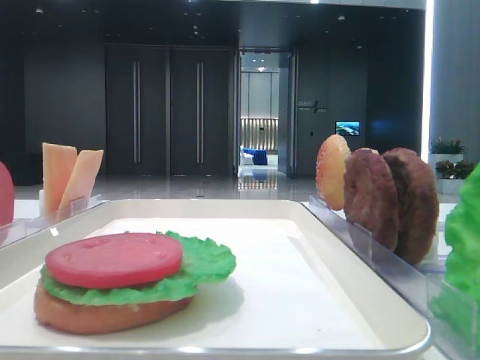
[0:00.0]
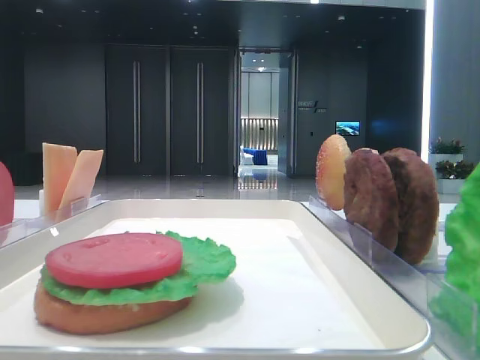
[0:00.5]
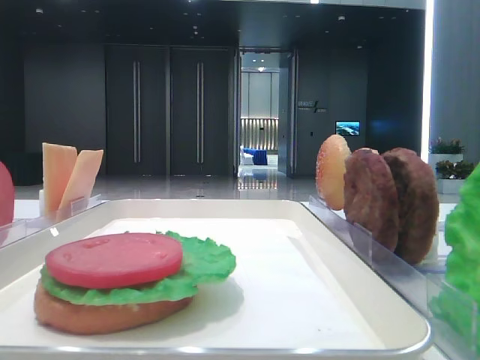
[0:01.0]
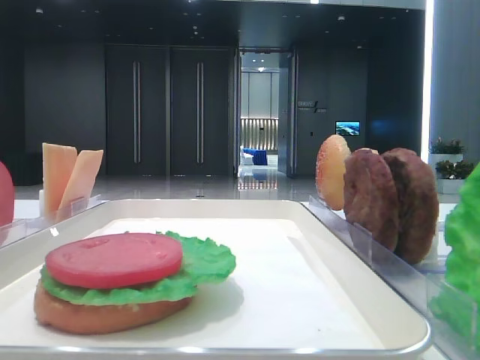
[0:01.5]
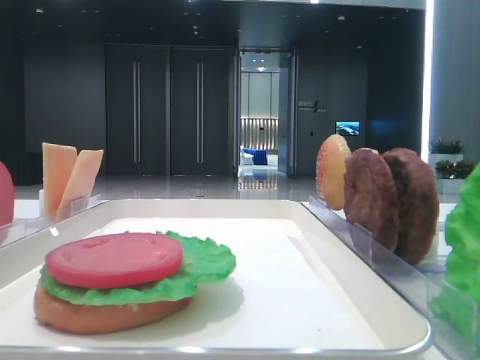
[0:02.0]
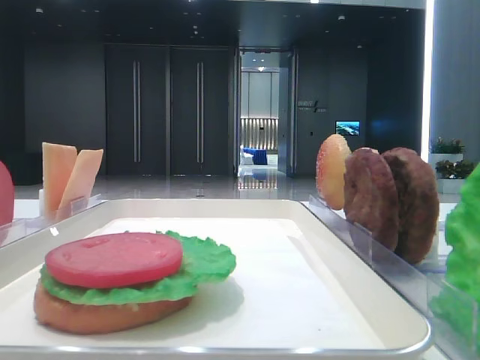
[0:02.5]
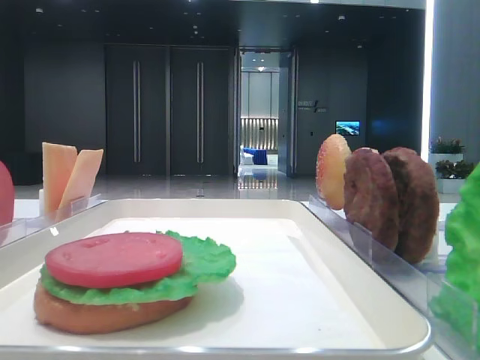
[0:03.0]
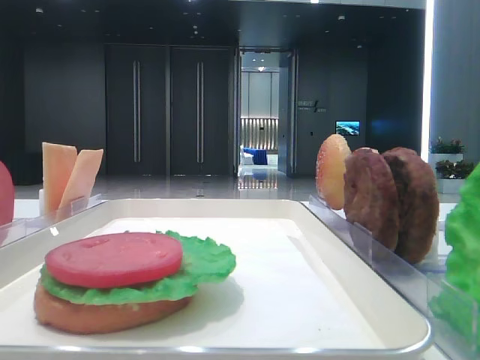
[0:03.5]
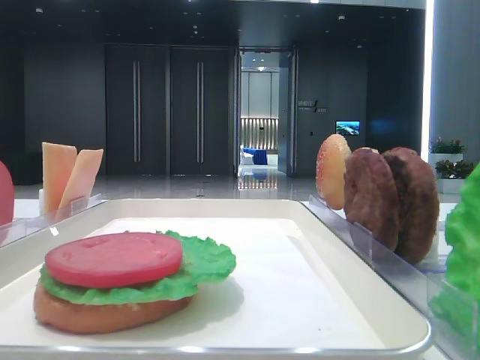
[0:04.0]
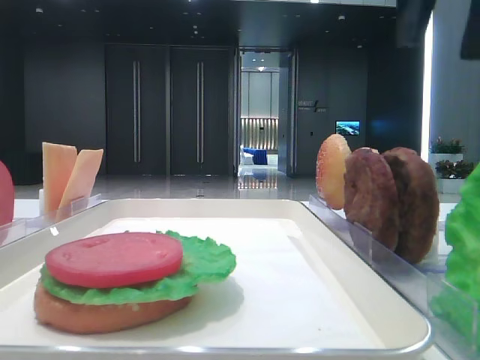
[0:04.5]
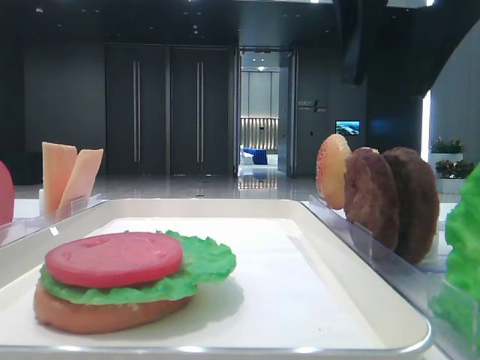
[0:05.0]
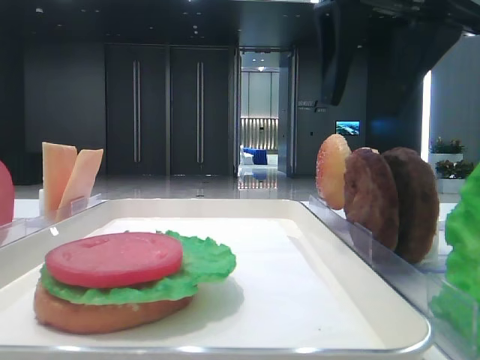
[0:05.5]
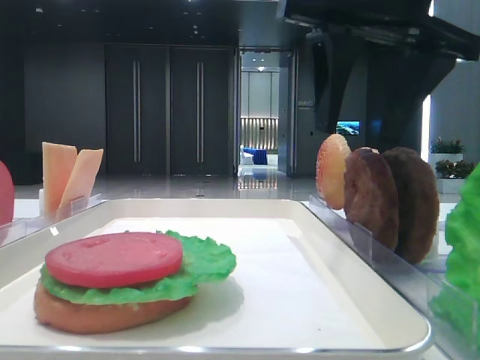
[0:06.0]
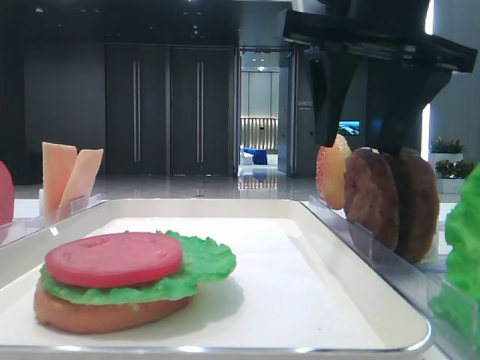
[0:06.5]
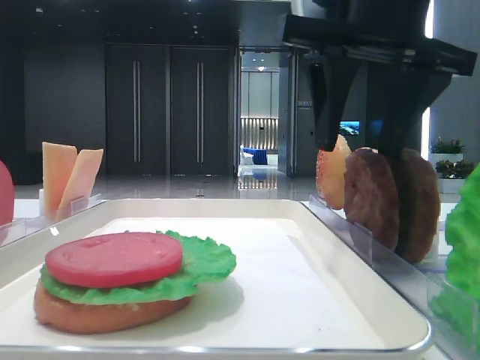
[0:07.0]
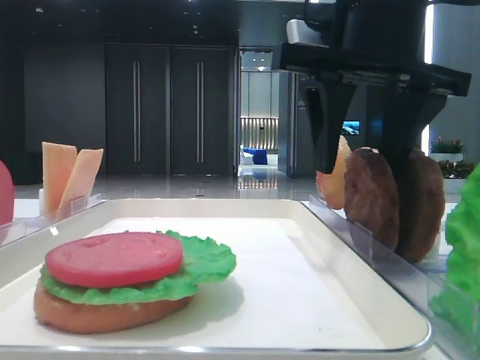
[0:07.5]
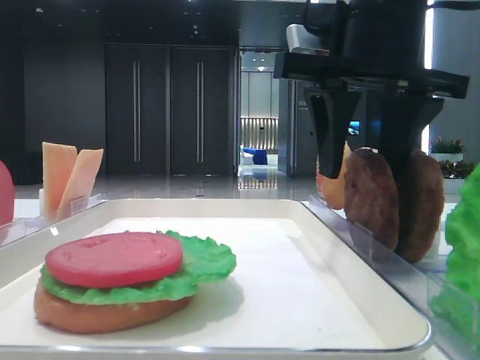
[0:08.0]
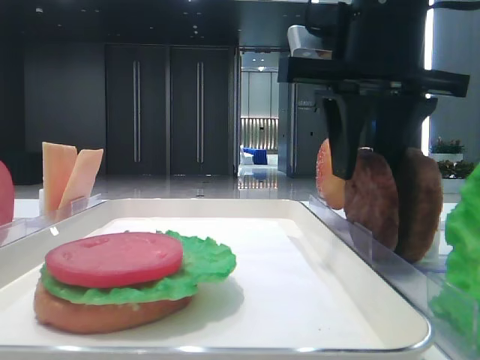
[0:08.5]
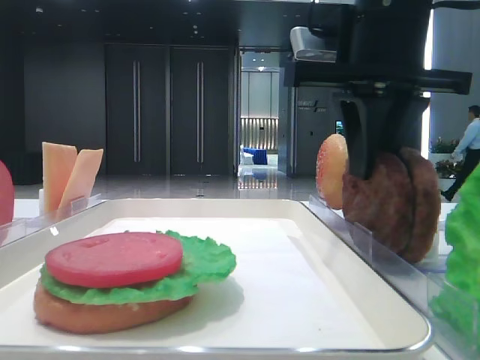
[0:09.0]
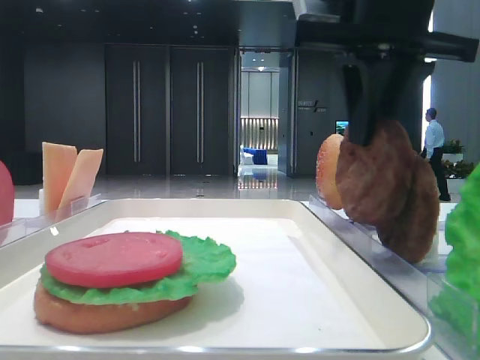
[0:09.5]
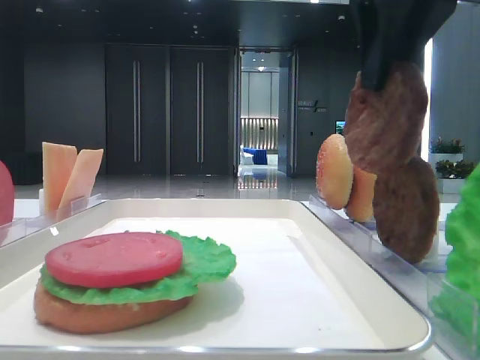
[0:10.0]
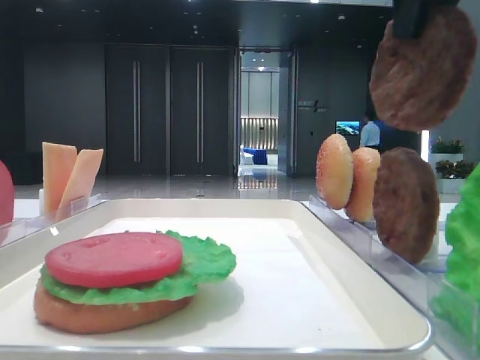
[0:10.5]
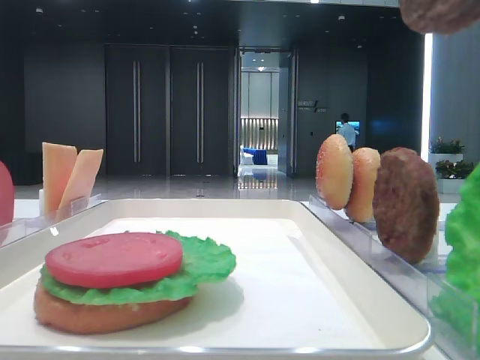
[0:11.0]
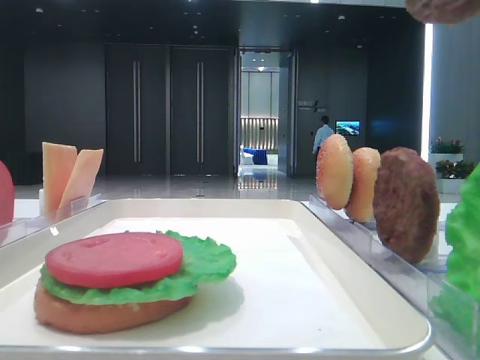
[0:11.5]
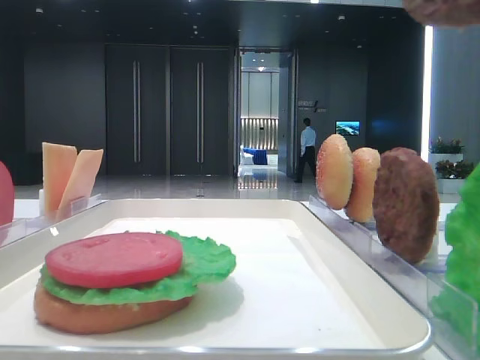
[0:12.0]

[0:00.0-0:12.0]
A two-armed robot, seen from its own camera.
Step, 0:00.0 to 0:09.0: Grab the patty with the right hand.
0:04.0 to 0:06.0: The right gripper travels to the left, downward and forward by about 15 cm.
0:06.0 to 0:08.0: The grippers stay close to where they were, moving slightly.
0:08.0 to 0:10.0: The right gripper moves upward, roughly 5 cm, and closes.
0:10.0 to 0:12.0: The right gripper is displaced backward and upward by about 15 cm.

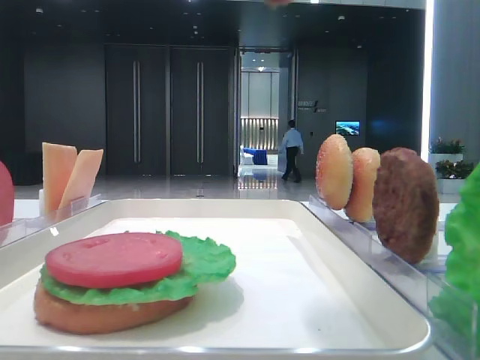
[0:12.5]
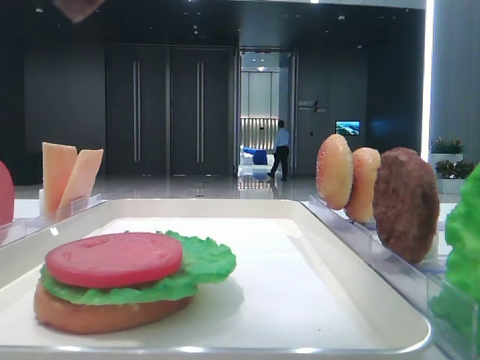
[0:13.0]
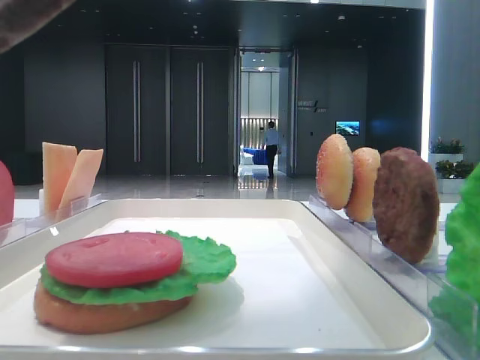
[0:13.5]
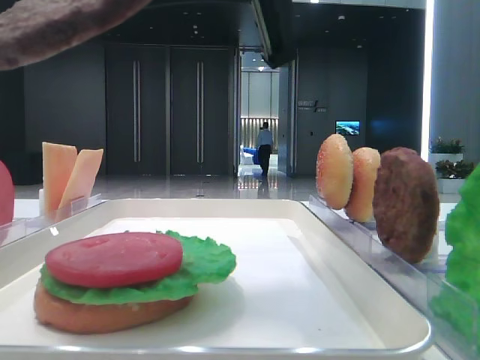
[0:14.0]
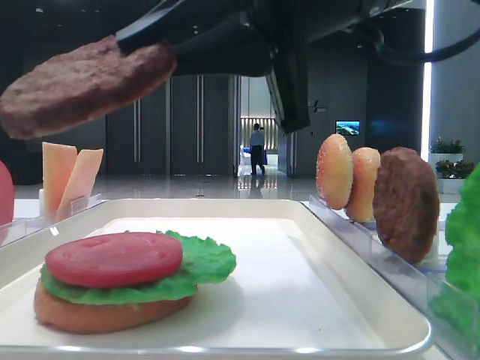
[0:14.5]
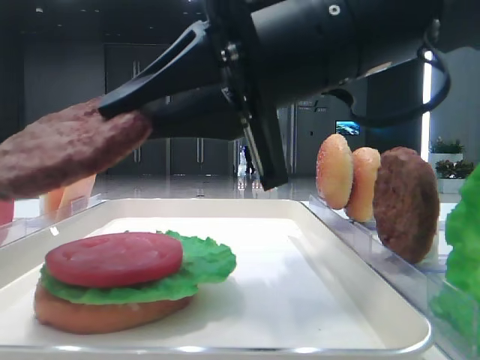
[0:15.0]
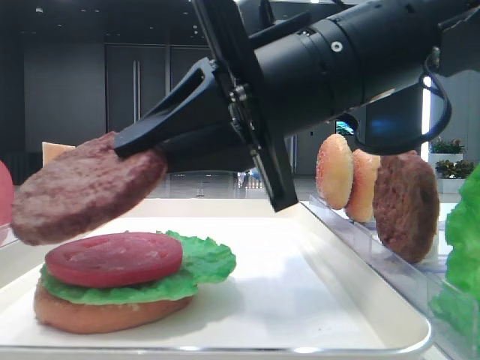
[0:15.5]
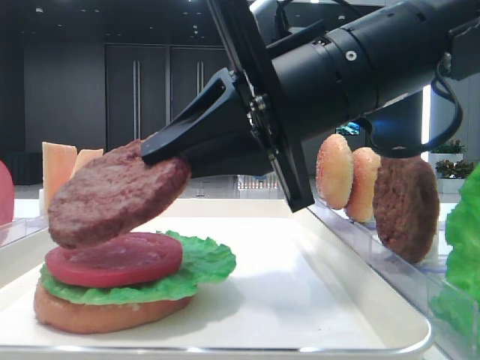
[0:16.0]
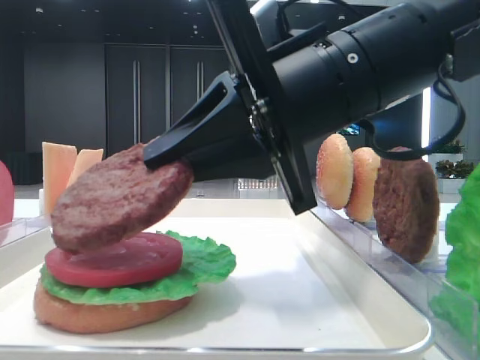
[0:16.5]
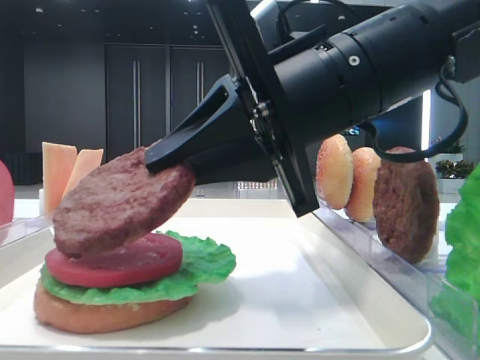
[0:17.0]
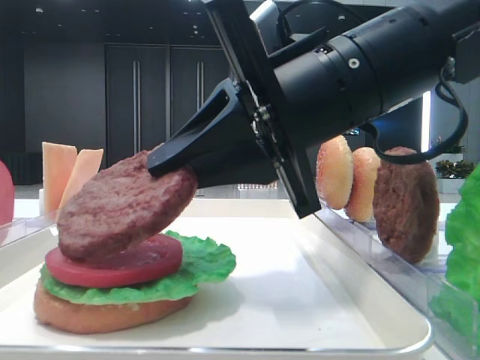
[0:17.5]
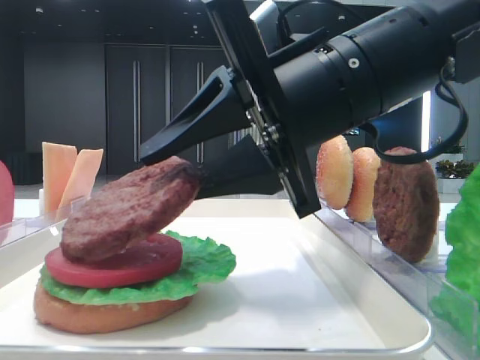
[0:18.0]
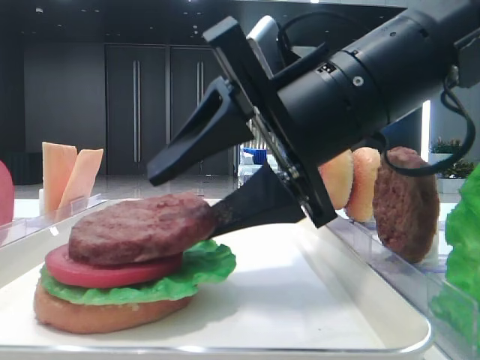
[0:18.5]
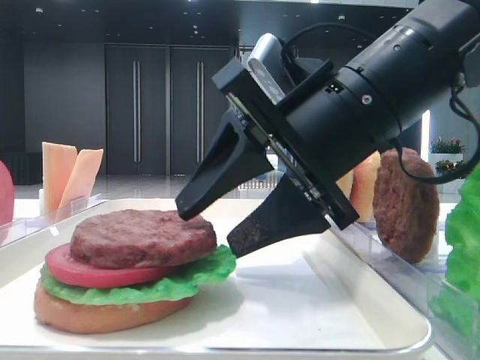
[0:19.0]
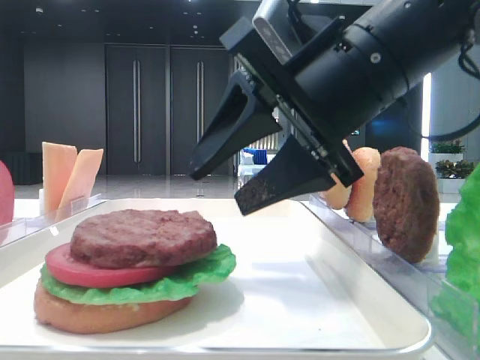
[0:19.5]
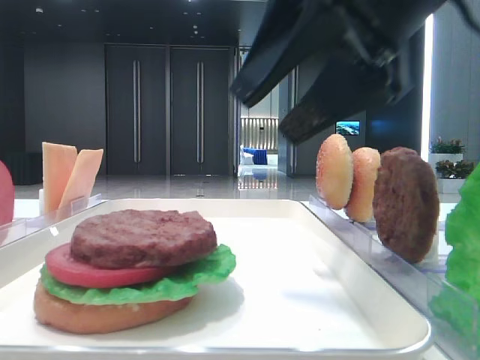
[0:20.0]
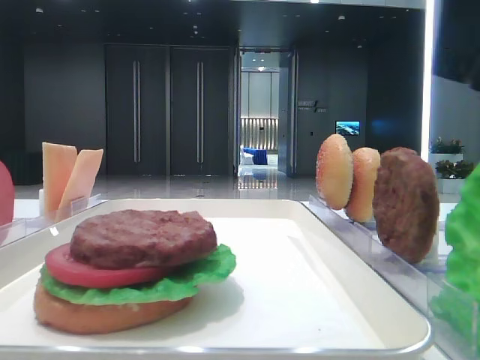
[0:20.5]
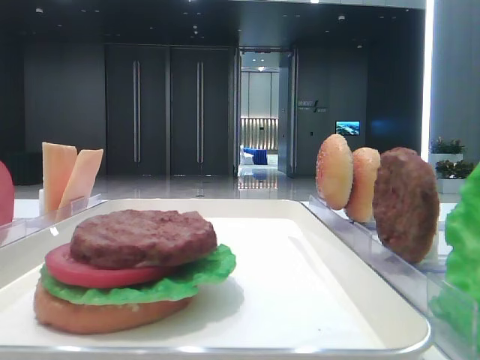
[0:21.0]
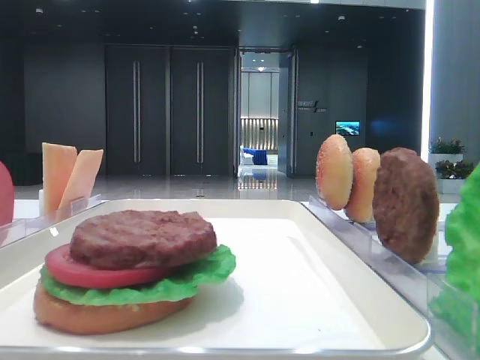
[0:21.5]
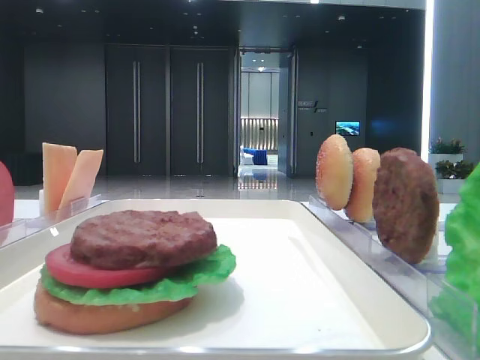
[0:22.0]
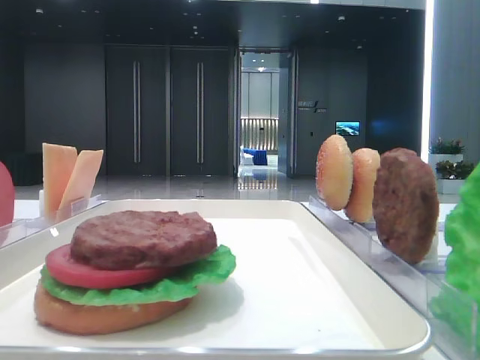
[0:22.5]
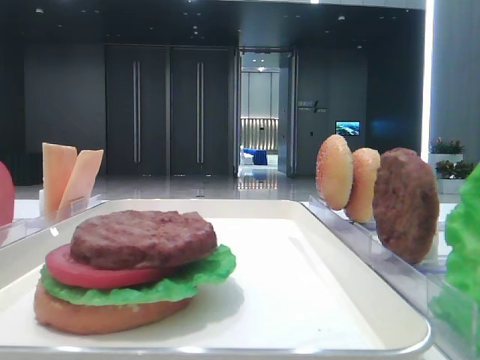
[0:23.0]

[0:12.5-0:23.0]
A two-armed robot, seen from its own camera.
Step, 0:12.5 to 0:18.5: Place the patty on the tomato slice with the right hand.
0:12.5 to 0:14.5: The right gripper is displaced downward and forward by about 15 cm.
0:14.5 to 0:16.5: The right gripper is displaced downward by about 5 cm.
0:16.5 to 0:19.0: The right gripper opens.
0:19.0 to 0:21.0: The right gripper goes about 25 cm to the right, upward and backward.

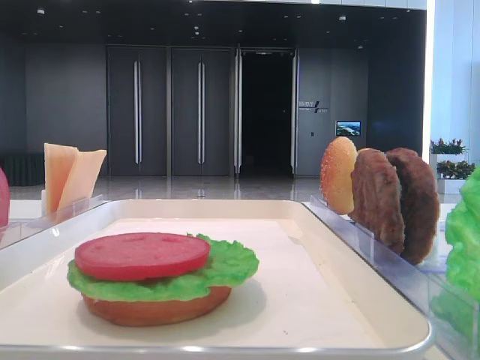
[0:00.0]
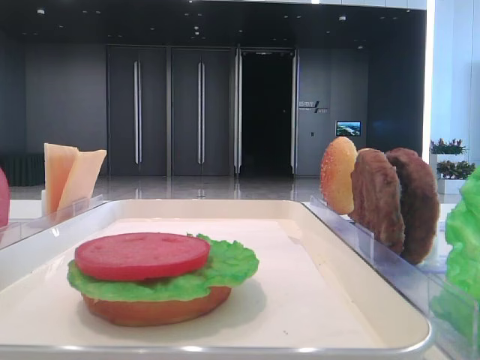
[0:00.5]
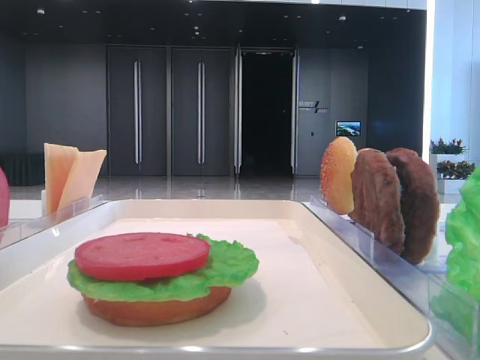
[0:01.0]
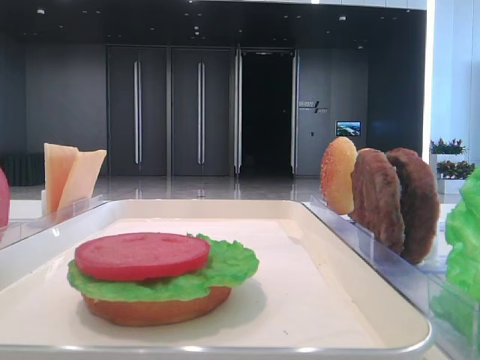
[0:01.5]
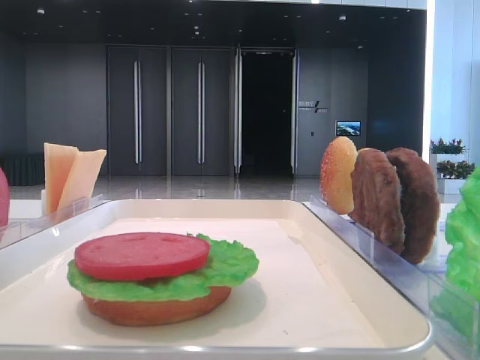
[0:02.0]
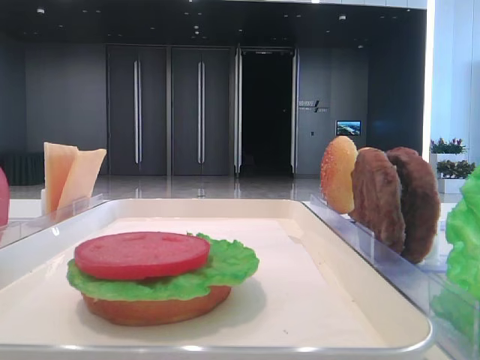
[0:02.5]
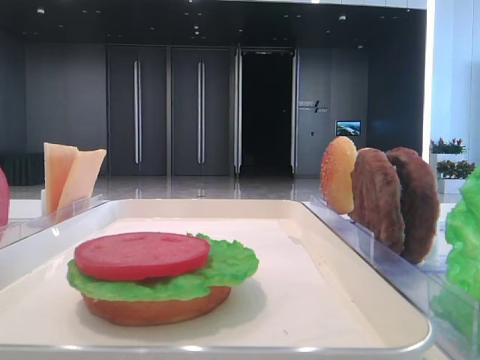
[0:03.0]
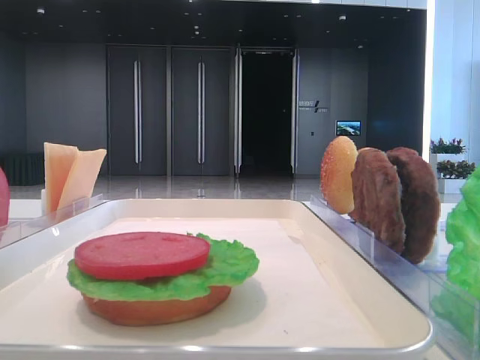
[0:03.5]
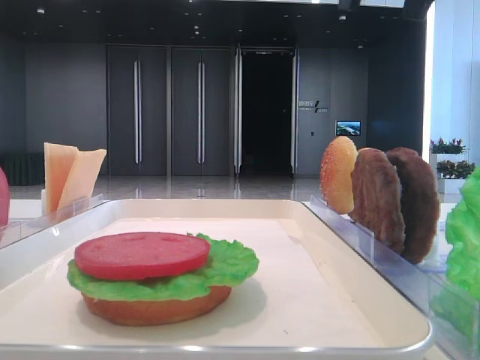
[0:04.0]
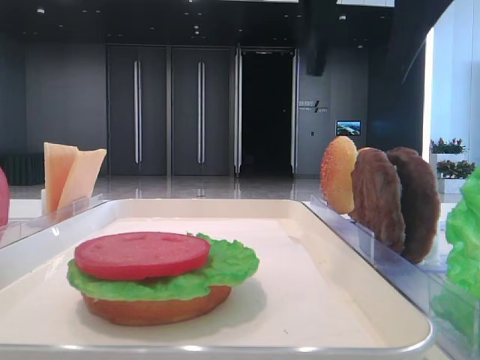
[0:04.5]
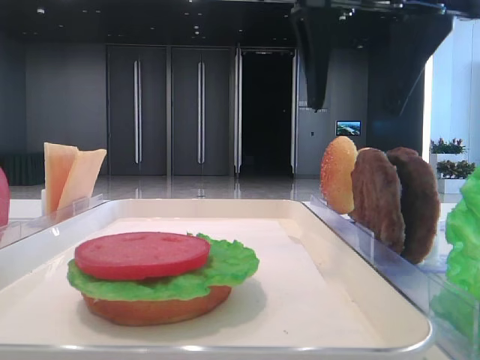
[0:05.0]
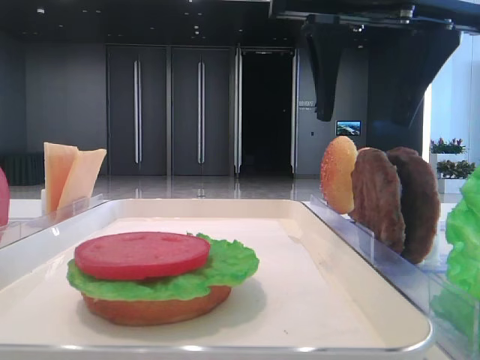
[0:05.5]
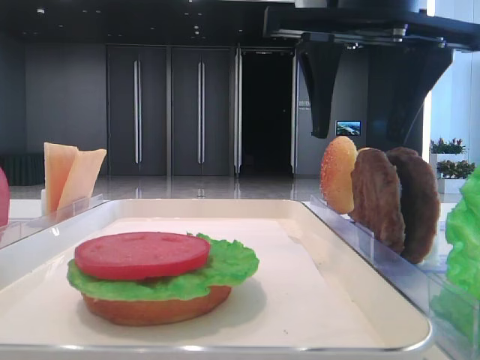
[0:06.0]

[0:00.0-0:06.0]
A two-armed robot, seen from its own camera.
0:04.0 to 0:06.0: The right gripper moves downward, approximately 10 cm.
